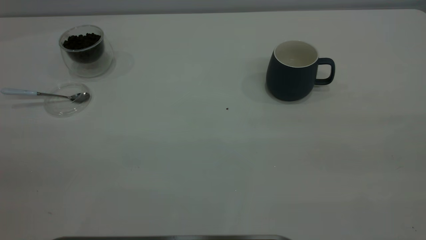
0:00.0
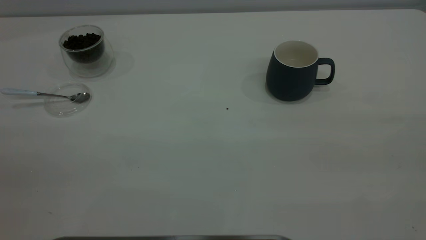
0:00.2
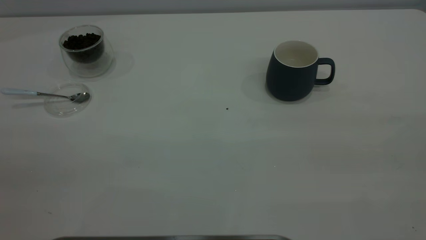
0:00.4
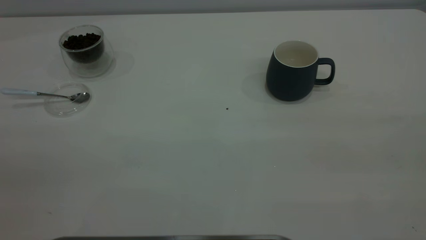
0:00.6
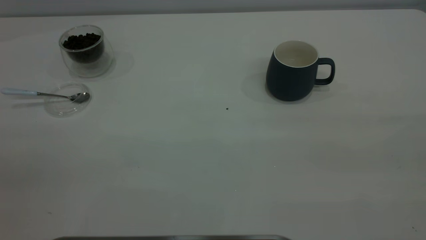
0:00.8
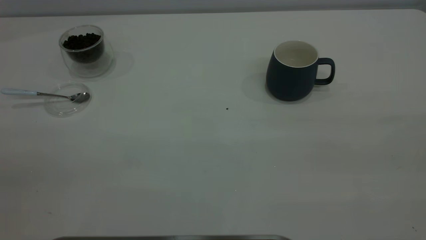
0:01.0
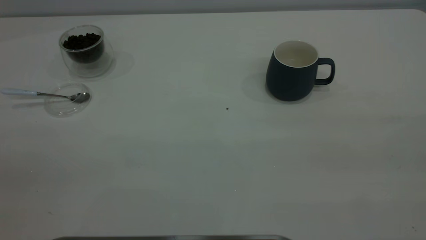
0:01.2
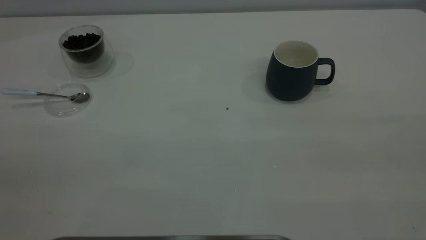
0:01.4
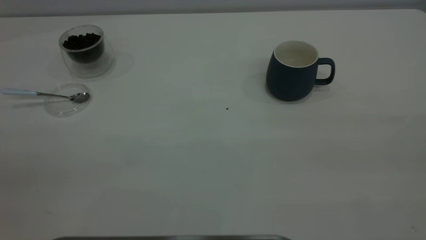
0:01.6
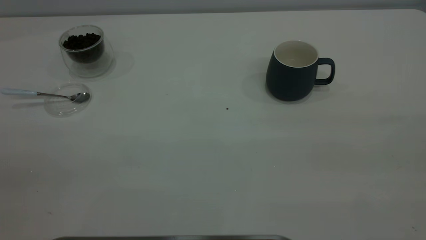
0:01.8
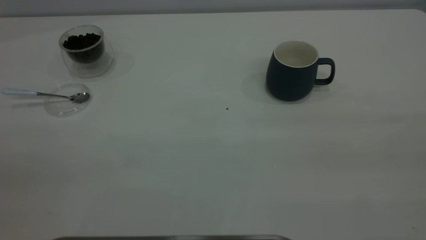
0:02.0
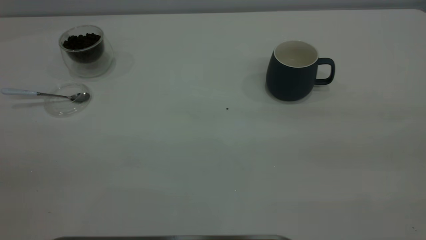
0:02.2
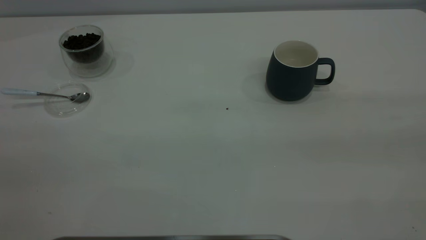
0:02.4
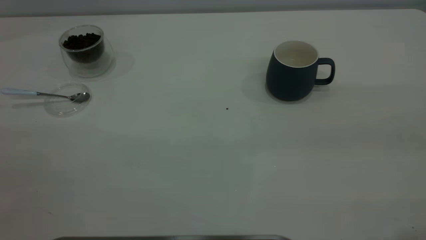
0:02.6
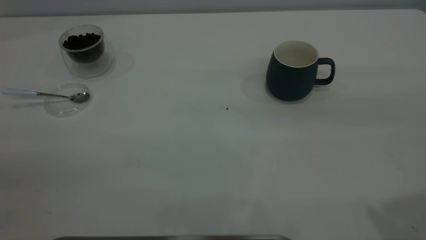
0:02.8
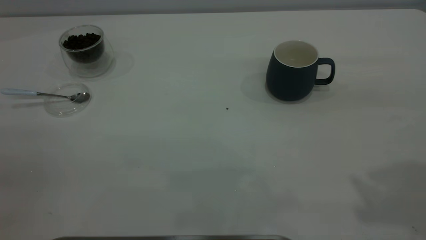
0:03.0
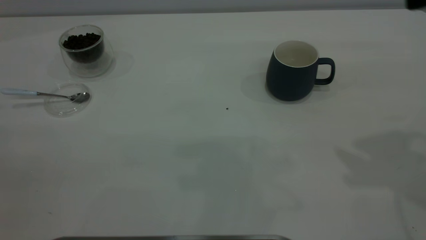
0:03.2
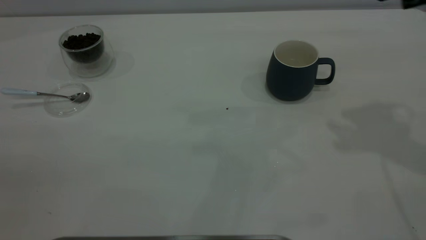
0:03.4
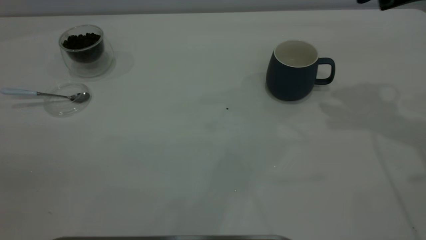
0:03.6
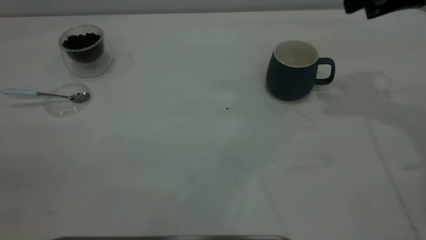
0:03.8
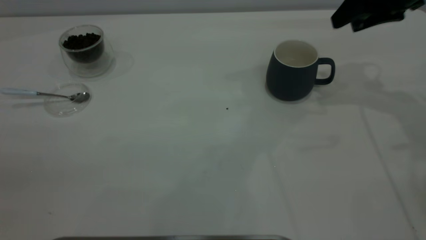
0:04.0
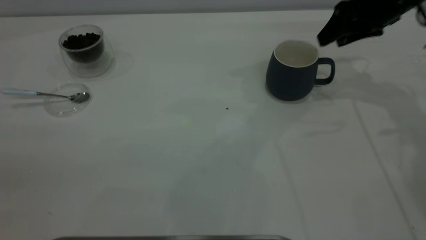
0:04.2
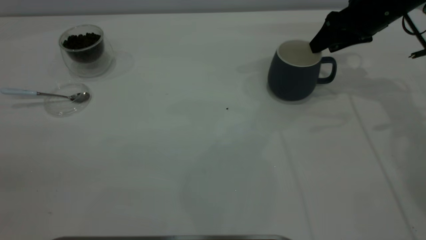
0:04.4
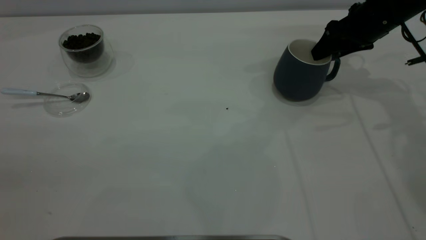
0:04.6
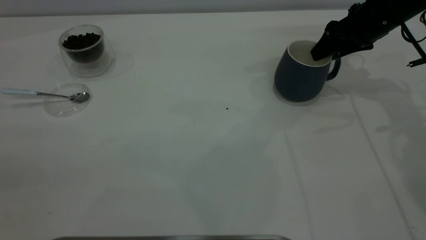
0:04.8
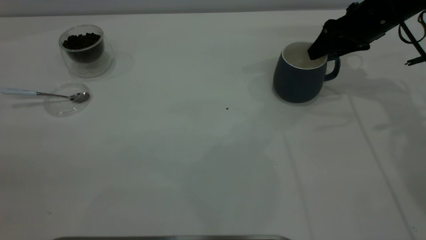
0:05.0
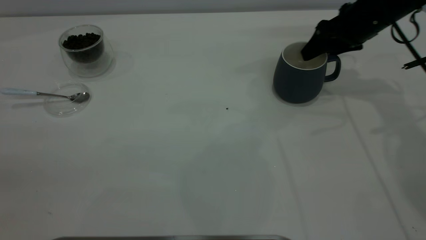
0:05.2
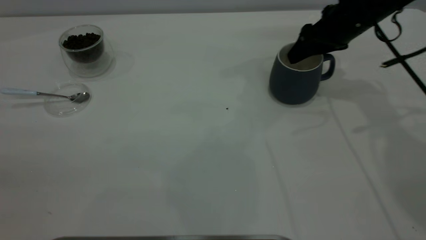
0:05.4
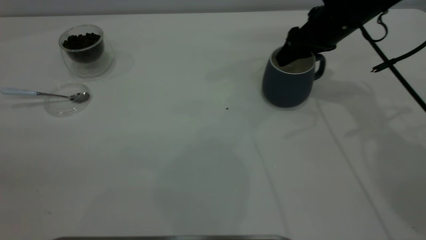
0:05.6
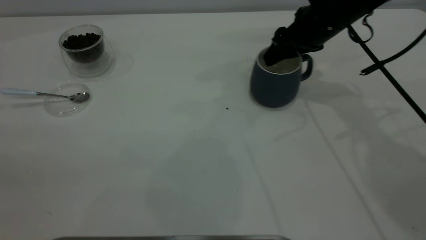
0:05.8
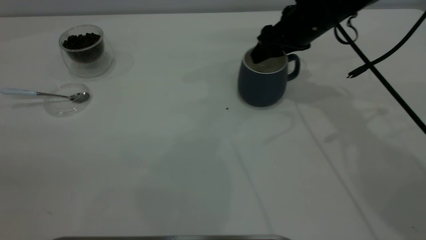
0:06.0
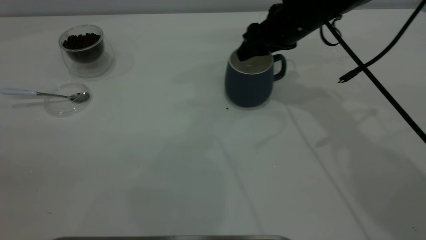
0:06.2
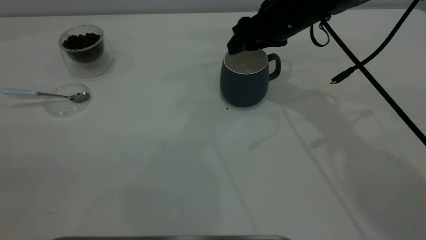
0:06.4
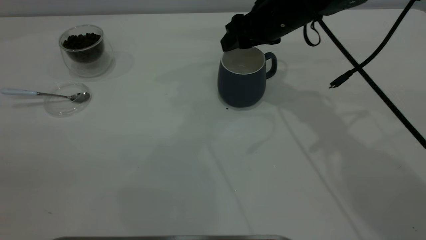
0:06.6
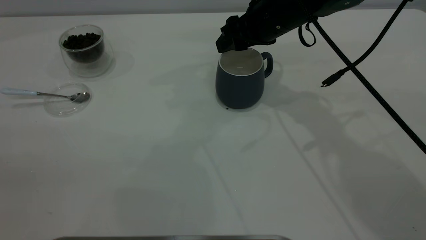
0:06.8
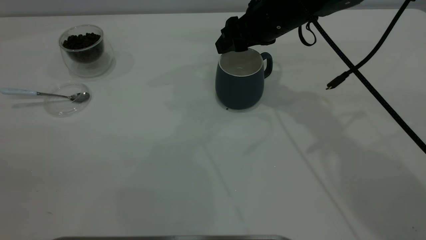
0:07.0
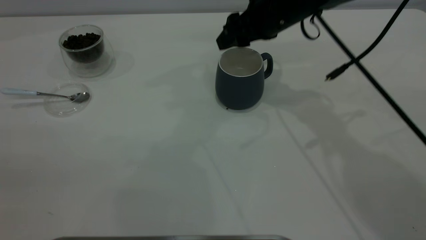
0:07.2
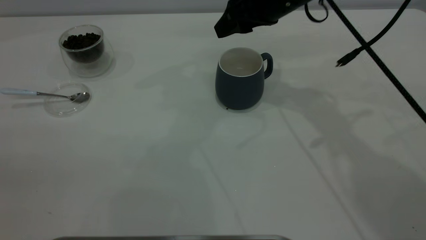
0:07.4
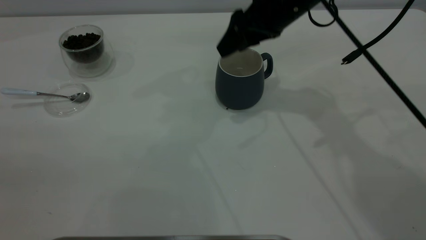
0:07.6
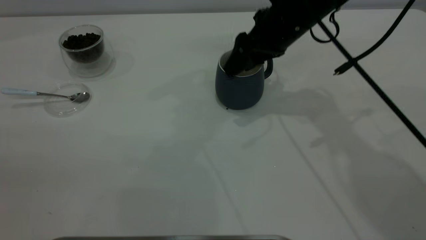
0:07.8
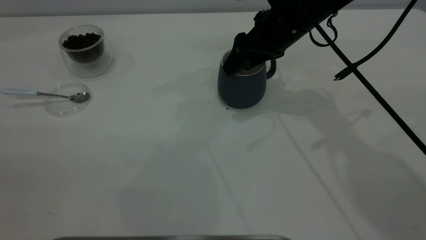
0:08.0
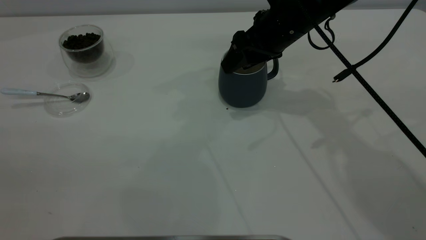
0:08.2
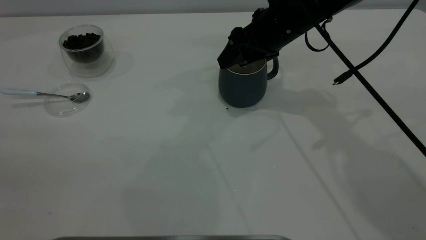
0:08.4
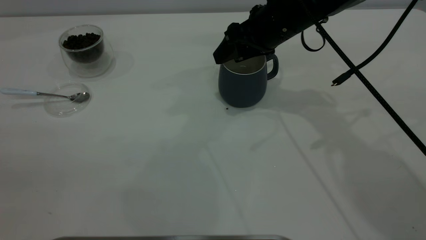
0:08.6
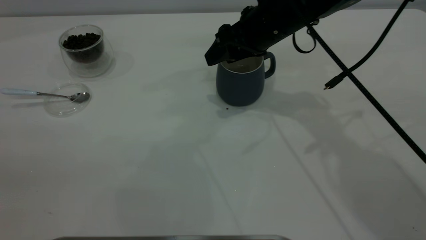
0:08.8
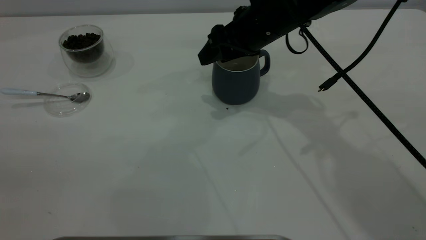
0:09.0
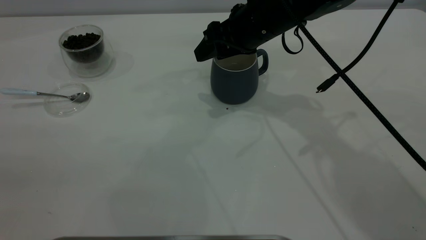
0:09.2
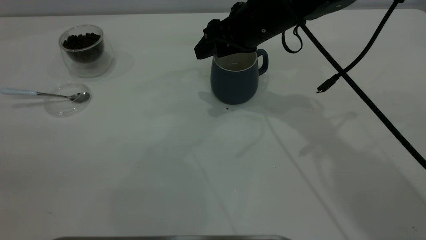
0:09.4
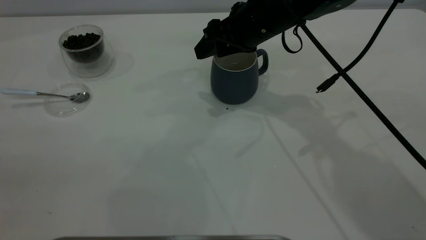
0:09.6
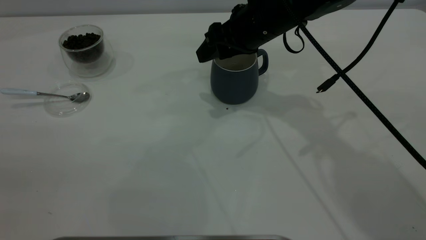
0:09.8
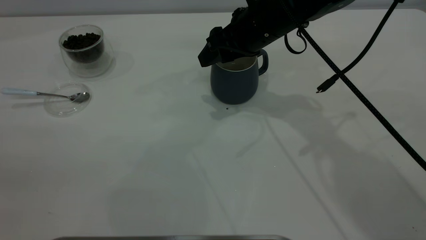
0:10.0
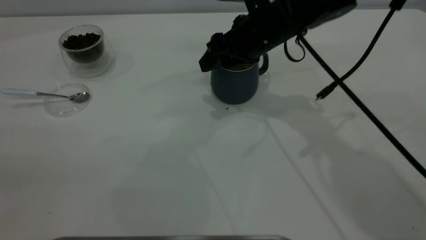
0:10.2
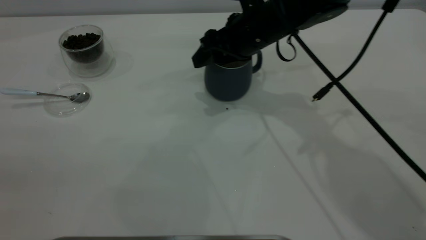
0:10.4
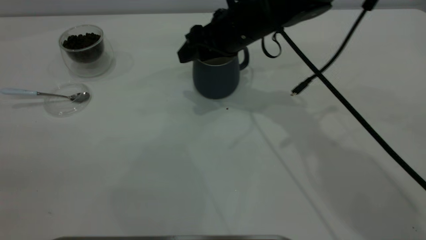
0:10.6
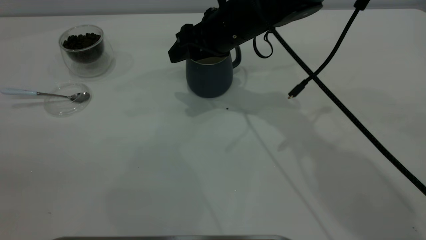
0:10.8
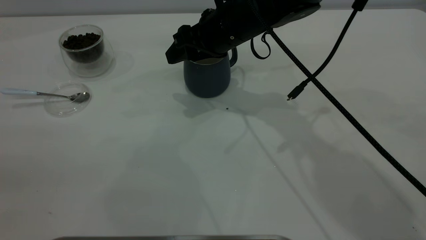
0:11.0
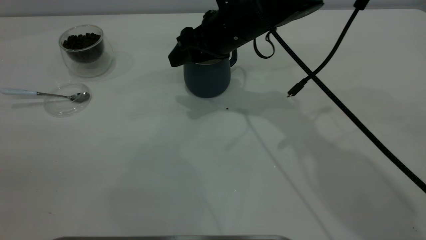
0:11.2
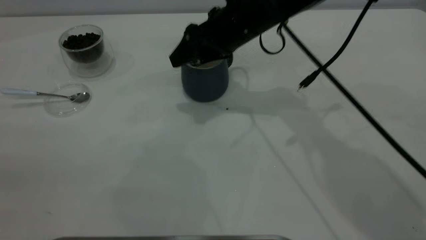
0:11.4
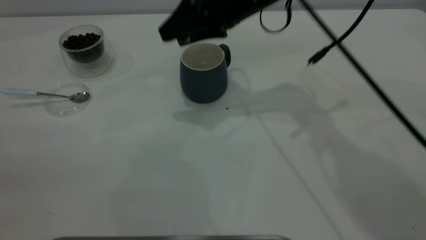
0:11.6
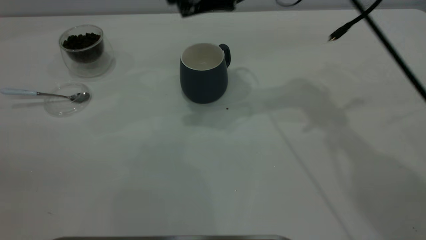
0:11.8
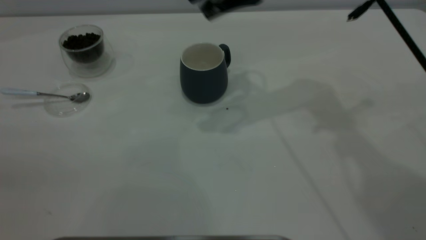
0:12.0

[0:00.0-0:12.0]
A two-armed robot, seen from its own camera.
Task of the whole recording: the right gripper place the grey cup in the center of the table, the left gripper take the blue spoon from the cup lid and scoop out the coffee beans from the coffee cup and put them into the grey cup, the left gripper put the spoon back into the cup lid.
Step, 0:00.0 to 0:11.6: Move the cup to the center of view.
0:00.0 to 0:01.6: Both grippers stay about where they are.
0:03.0 to 0:04.4: The right gripper is displaced forward and downward by approximately 30 cm.
0:04.4 to 0:06.0: The right gripper moves to the left, about 10 cm.
0:06.0 to 0:07.6: The right gripper ends up approximately 5 cm from where it was.
0:07.6 to 0:09.0: The grippers move only a little.
0:09.0 to 0:10.4: The grippers stay close to where they were, moving slightly.
0:10.4 to 0:12.0: The right gripper is displaced upward by some 15 cm.

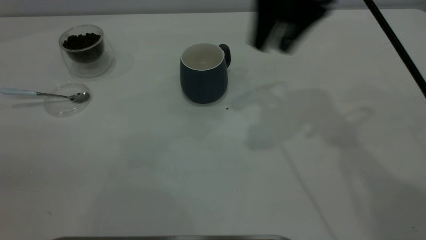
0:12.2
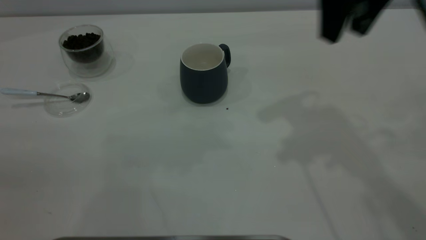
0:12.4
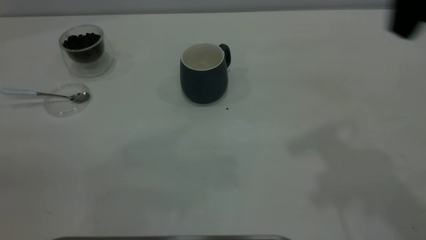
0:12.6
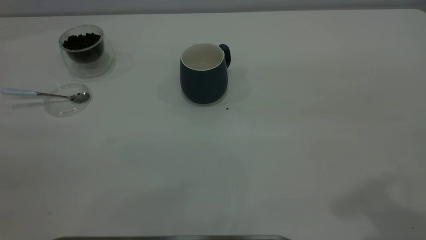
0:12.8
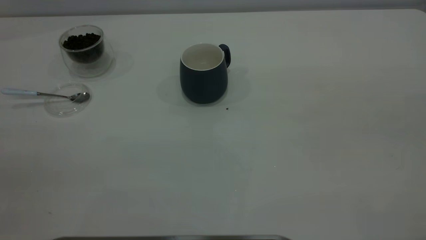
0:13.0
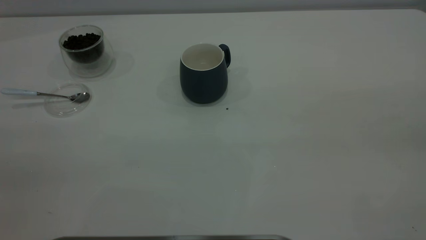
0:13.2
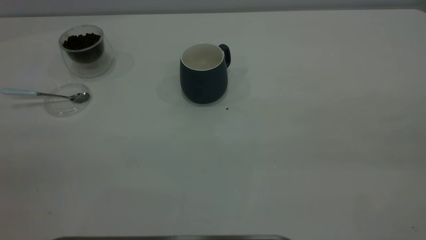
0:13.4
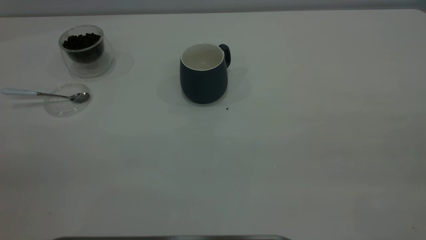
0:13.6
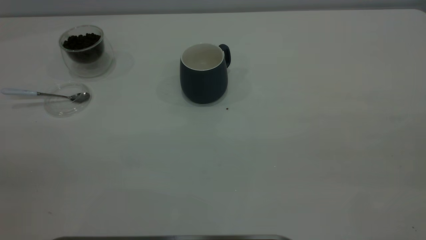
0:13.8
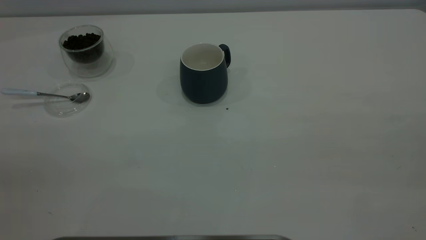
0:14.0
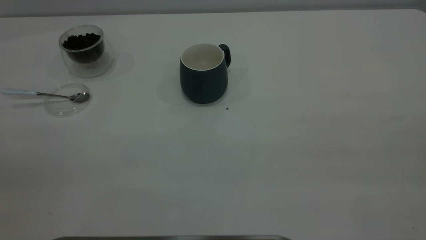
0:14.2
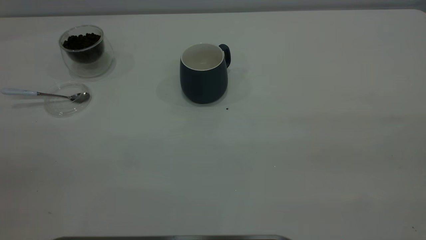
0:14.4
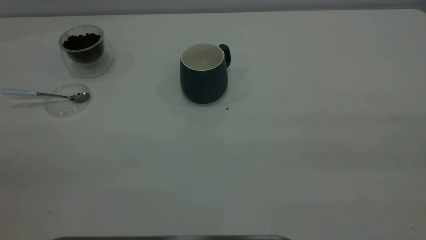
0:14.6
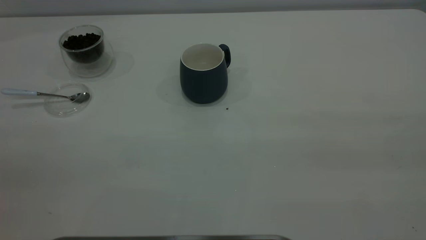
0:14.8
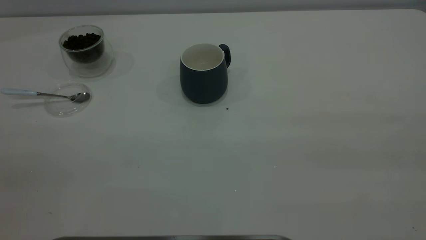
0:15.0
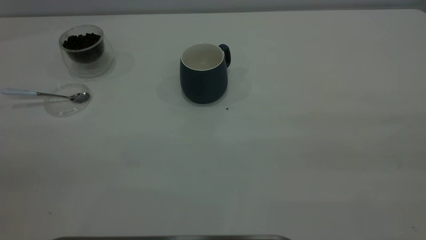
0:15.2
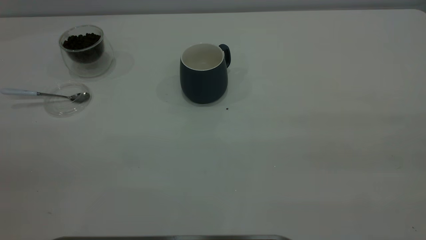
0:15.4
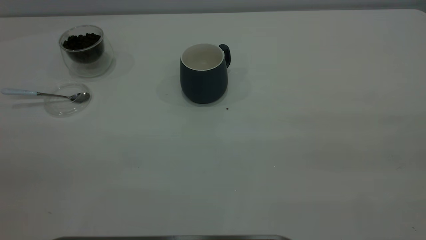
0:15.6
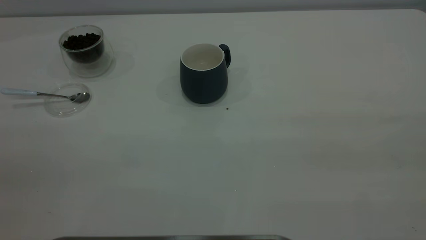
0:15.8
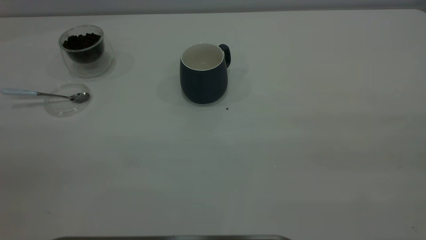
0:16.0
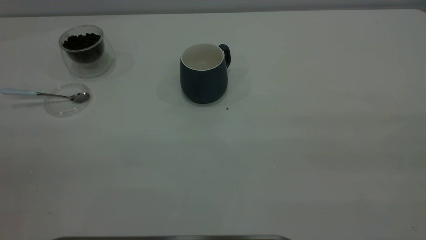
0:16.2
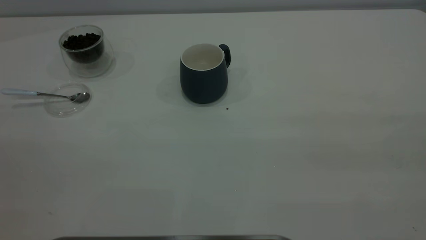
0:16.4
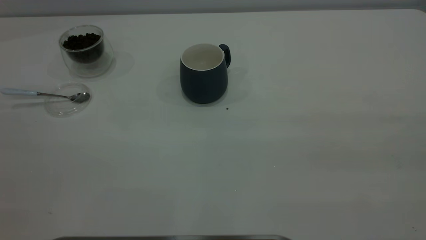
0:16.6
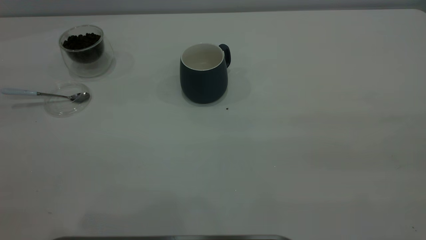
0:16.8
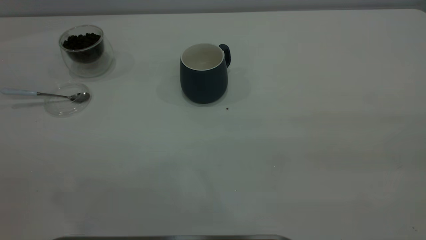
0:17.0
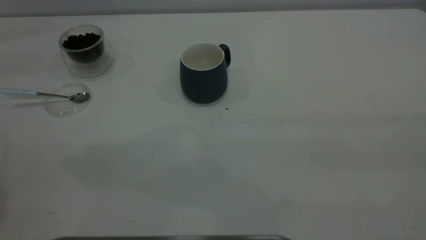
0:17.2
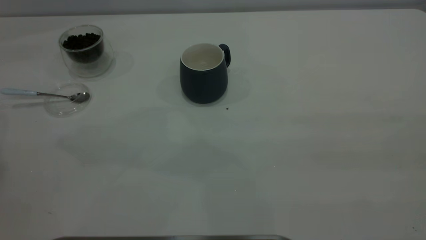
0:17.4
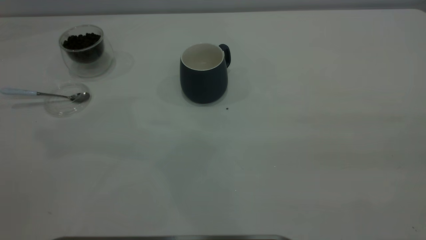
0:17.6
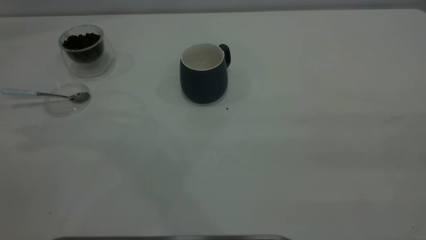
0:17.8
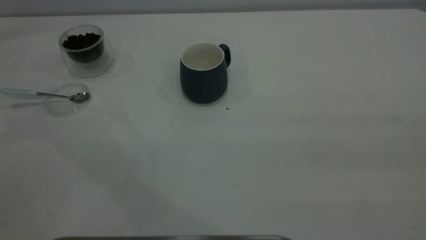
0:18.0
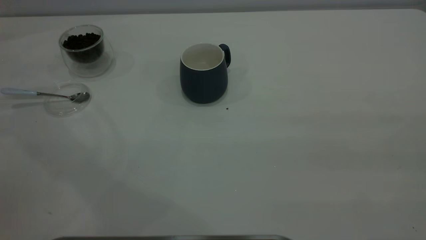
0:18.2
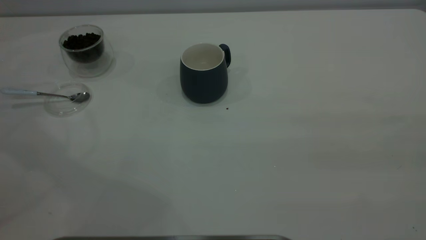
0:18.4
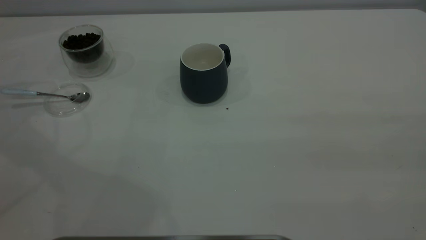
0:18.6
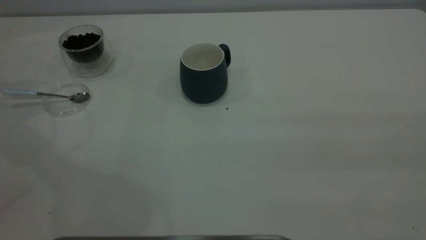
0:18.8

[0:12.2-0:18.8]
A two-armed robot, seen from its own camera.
Task of the whole recording: the right gripper place the grey cup in the center of the table, the left gripper take the blue spoon from the cup lid and scoop out the coffee beans from the coffee cup and put them into the grey cup, the left gripper put the spoon back into the cup lid.
0:12.2 to 0:13.8: The right gripper shifts about 40 cm backward and to the right.
